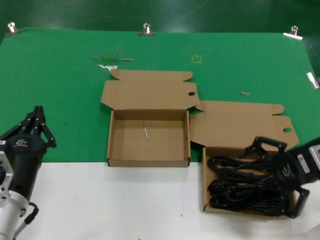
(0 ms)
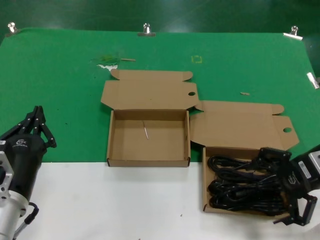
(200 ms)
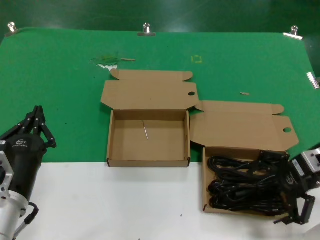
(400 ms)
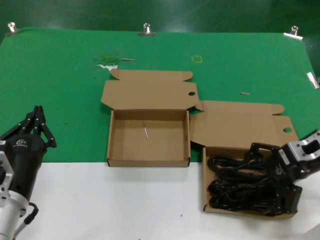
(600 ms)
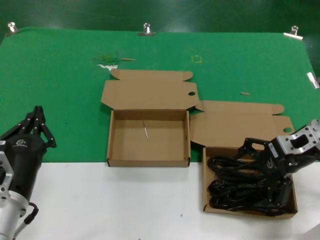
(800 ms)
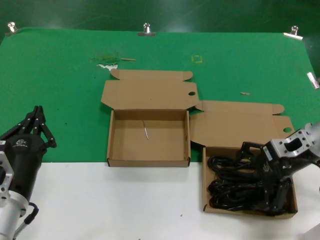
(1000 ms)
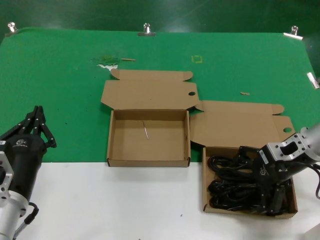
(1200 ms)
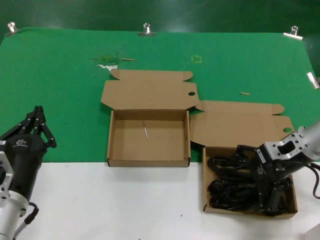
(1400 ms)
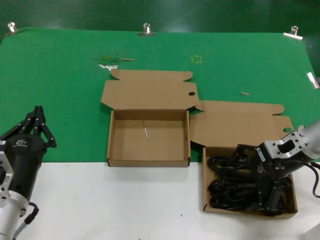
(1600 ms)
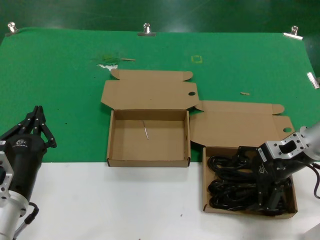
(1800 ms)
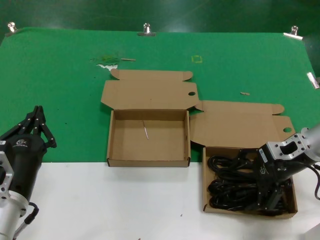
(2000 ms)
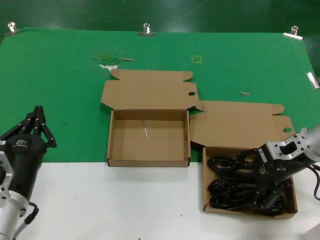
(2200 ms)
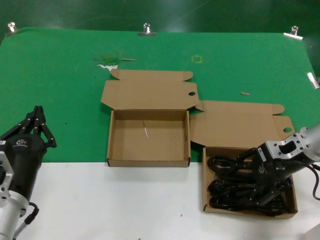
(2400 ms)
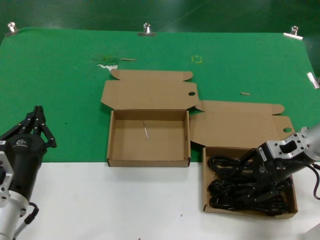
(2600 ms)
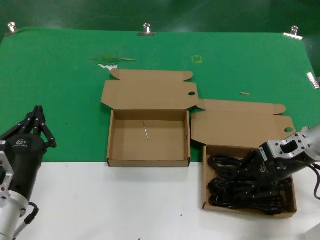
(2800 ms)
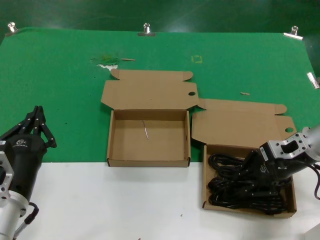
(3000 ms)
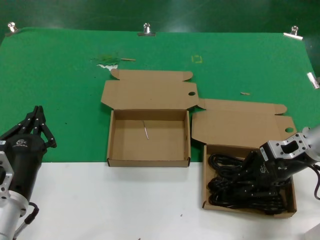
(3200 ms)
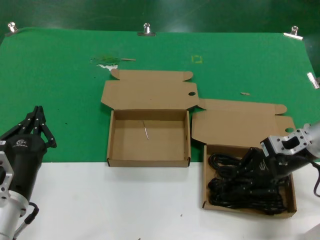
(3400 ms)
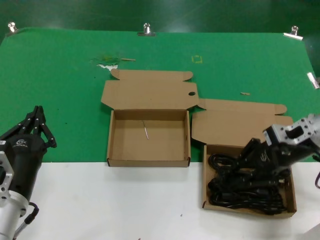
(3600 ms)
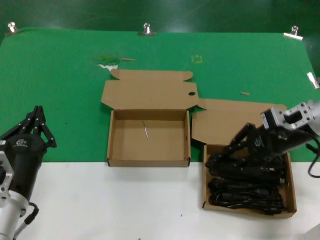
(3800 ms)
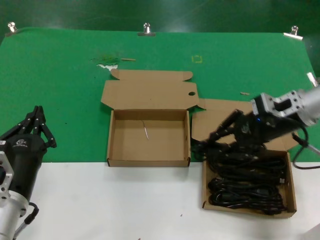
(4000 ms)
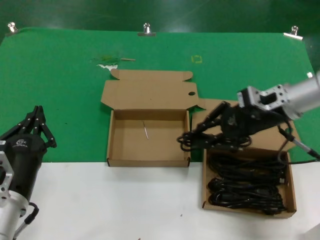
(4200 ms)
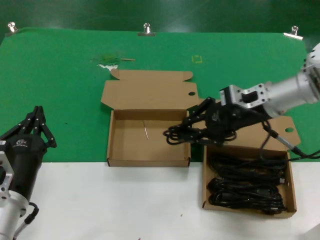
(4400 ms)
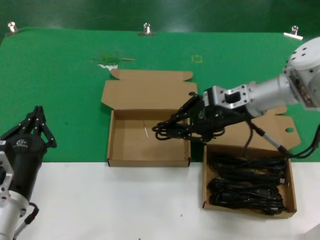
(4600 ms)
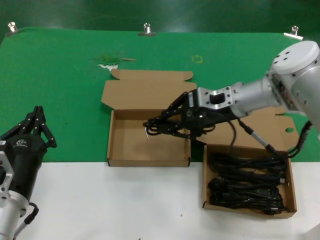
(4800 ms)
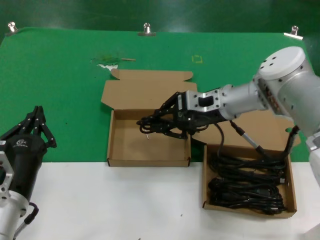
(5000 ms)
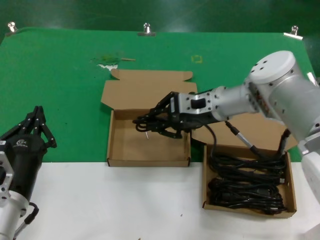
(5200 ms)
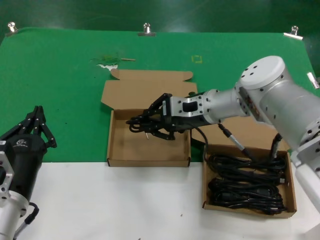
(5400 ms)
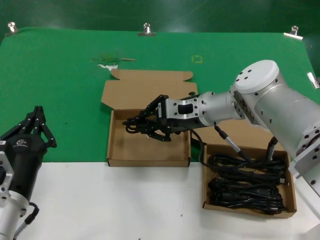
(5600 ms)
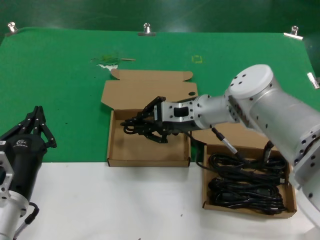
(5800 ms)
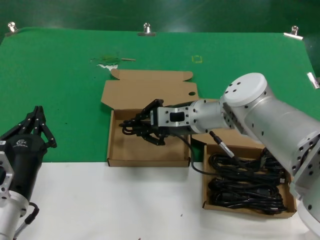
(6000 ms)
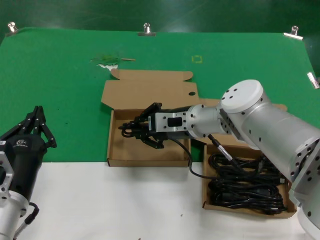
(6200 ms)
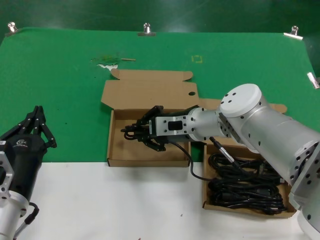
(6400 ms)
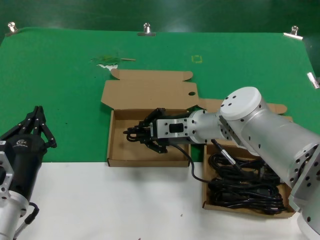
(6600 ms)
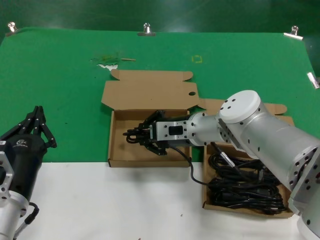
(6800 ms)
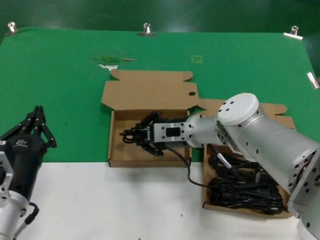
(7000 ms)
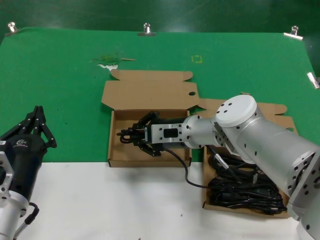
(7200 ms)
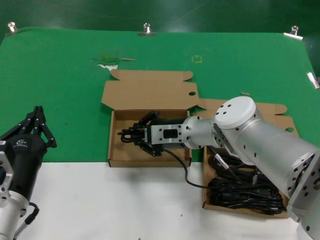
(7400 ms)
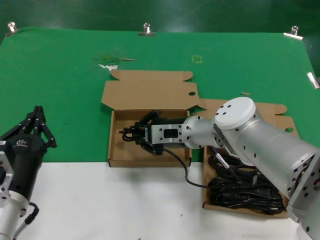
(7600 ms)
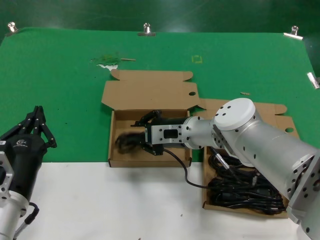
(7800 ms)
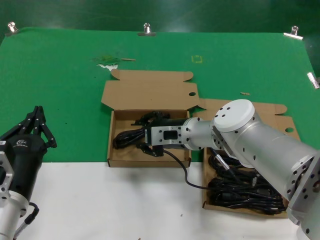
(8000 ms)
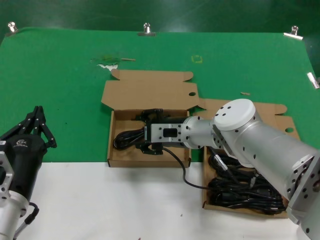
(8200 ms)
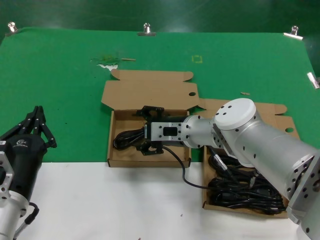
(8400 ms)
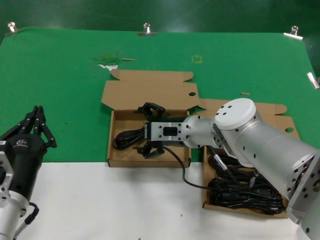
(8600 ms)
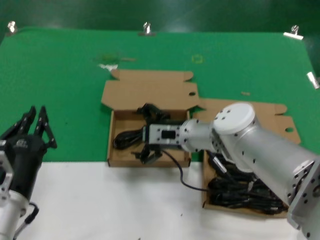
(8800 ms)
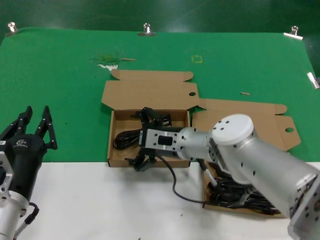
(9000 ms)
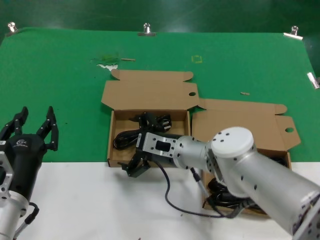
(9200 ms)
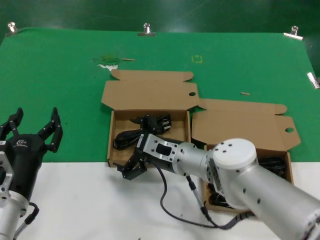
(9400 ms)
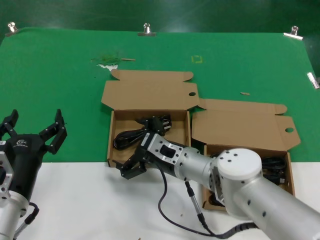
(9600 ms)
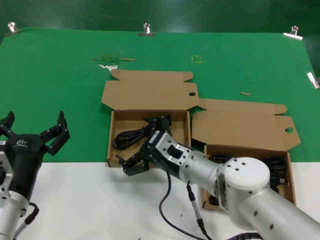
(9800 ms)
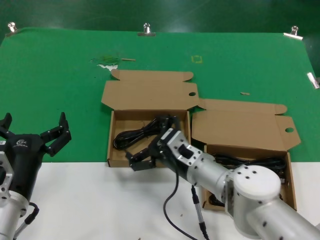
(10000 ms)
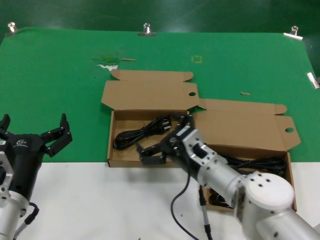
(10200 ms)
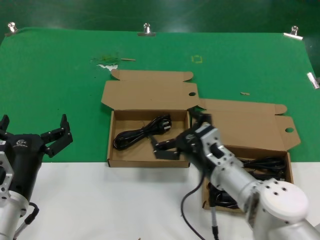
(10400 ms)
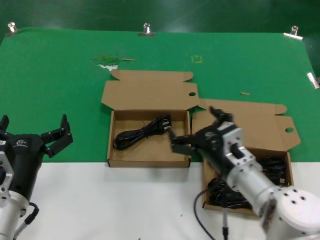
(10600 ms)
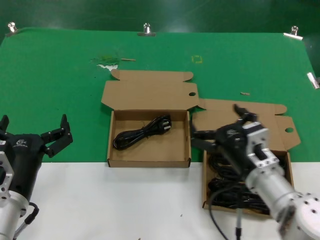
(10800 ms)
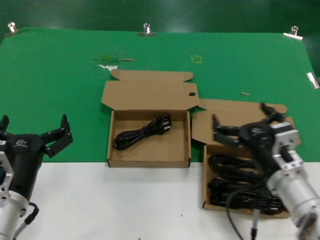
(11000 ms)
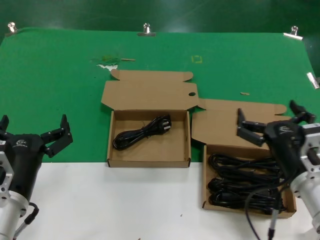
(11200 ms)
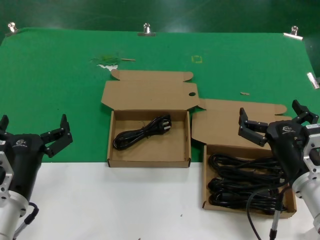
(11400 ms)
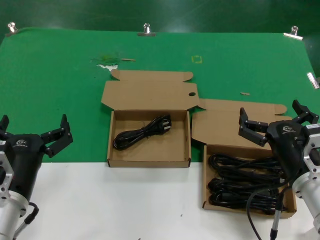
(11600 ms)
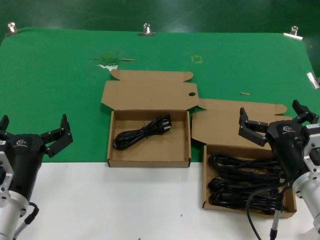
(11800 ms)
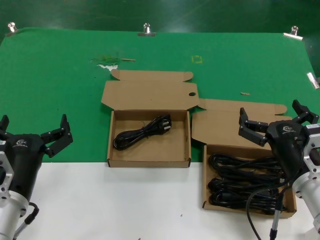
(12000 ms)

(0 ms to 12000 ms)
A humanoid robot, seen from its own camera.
Task of the whole recording: take the parts from the box containing them and put them into an empty box.
Step, 0 ms - 3200 ms: Grasp the data cable.
Step, 3400 ms - 7800 ms: Place the data cable in the another box.
0 ms - 1600 ms: The right hand is displaced forward and downward by some 10 cm.
1600 ms - 3000 ms: The two hands keep their place.
3000 ms - 4400 ms: The right hand moves to the left and upward, some 10 cm.
4400 ms - 6000 ms: The right hand travels to the left and downward by roughly 15 cm.
6000 ms - 7600 ms: There are only small adjustments of the hands.
7600 ms - 9000 ms: There are only small adjustments of the hands.
9000 ms - 10400 ms: The right hand travels backward by roughly 10 cm.
10400 ms - 12000 ms: The right hand goes approximately 15 cm to the right and backward.

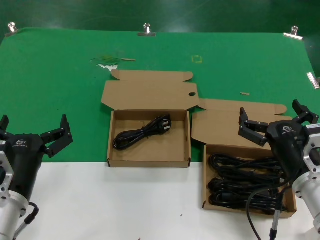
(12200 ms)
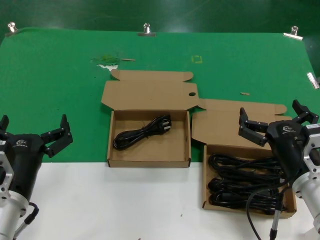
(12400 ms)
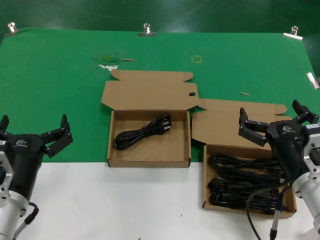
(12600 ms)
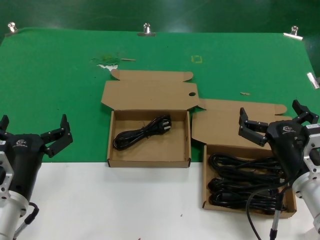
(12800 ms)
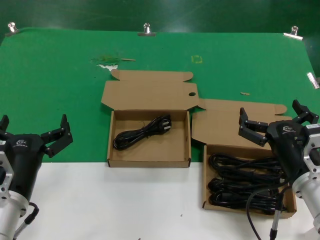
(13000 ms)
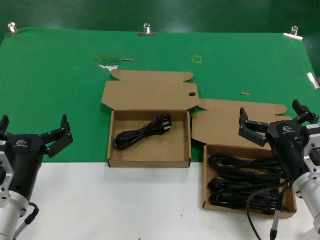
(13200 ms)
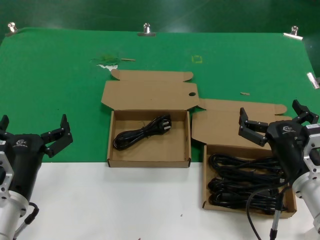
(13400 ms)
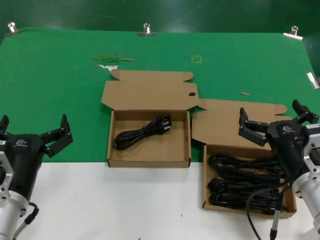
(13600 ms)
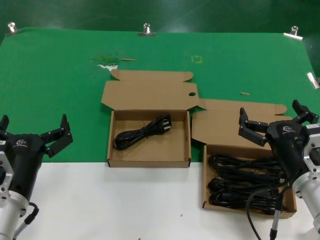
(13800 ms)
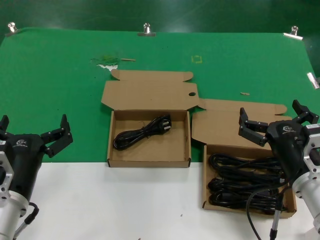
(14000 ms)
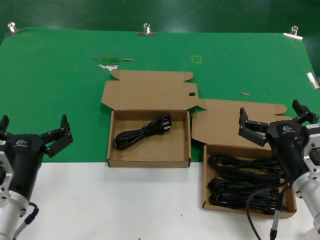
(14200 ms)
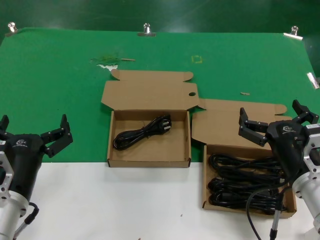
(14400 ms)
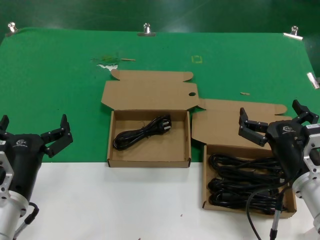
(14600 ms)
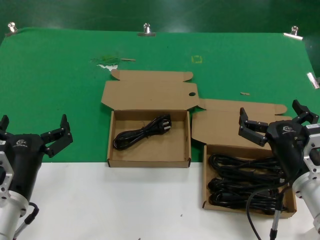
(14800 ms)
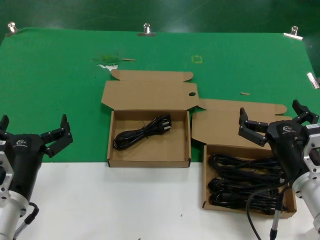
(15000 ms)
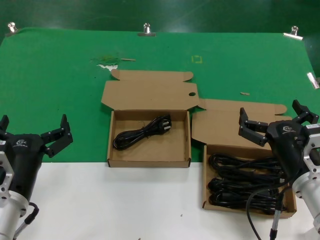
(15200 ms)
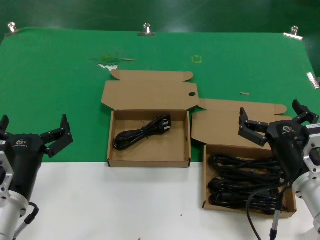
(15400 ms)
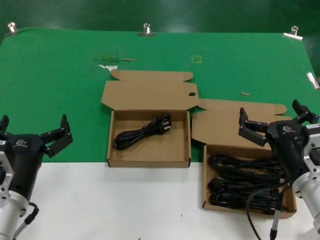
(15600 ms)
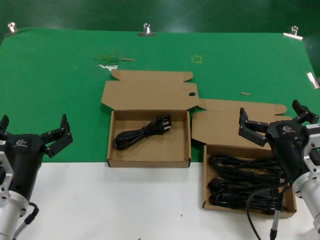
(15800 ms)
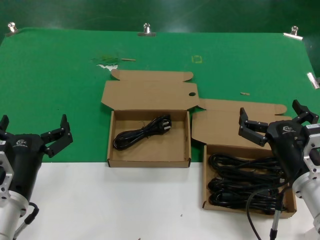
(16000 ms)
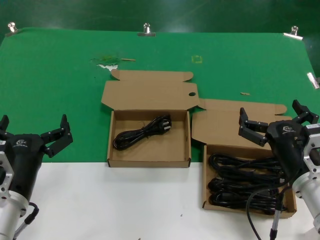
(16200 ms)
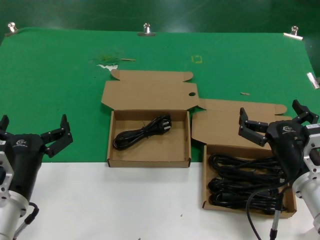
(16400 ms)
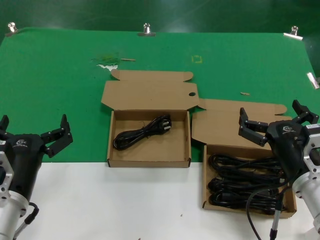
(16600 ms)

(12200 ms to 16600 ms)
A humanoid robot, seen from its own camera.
Task of the whole recording: take the parts from the box containing them and put them into an empty box.
12200 ms - 16600 ms: Neither hand changes place.

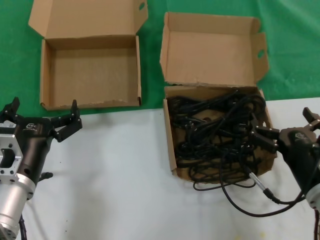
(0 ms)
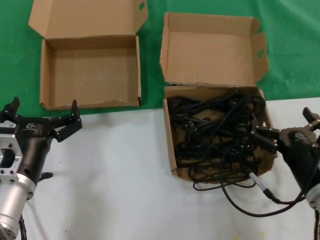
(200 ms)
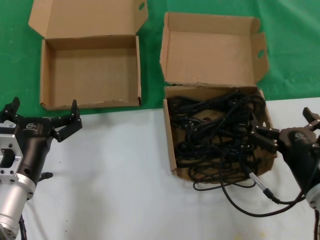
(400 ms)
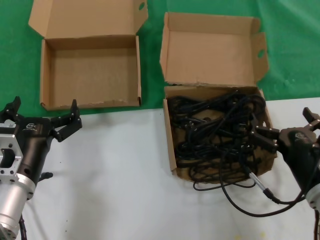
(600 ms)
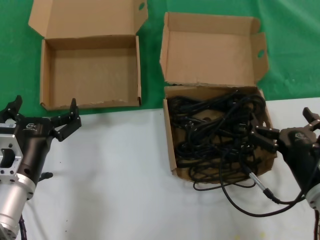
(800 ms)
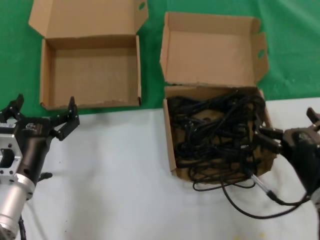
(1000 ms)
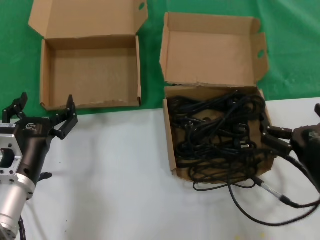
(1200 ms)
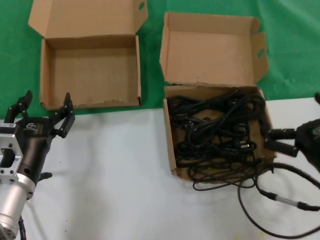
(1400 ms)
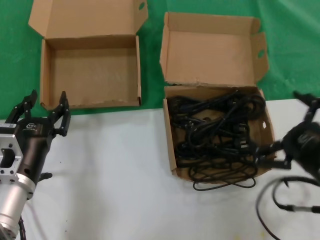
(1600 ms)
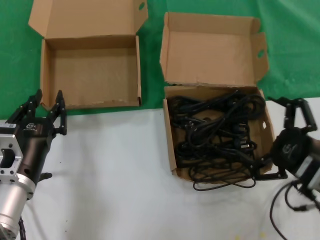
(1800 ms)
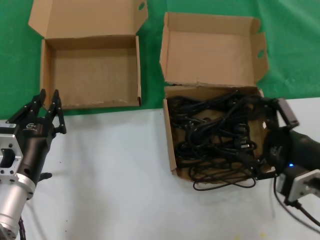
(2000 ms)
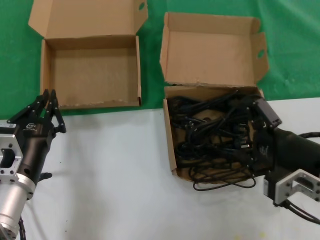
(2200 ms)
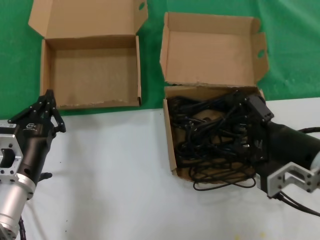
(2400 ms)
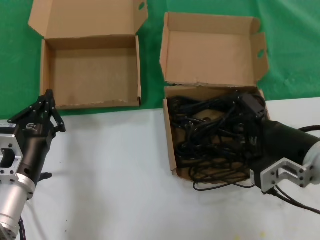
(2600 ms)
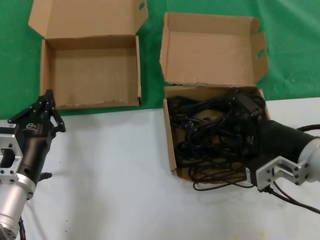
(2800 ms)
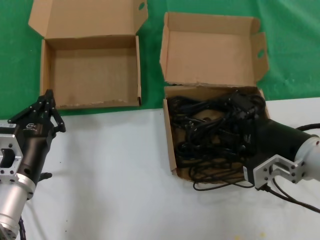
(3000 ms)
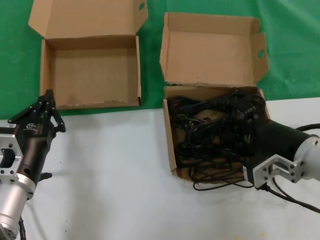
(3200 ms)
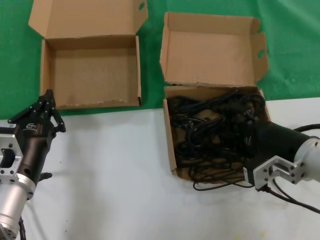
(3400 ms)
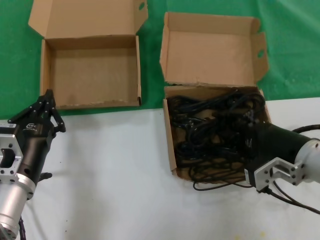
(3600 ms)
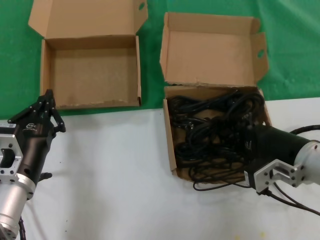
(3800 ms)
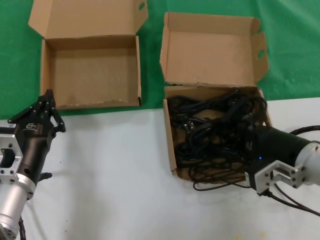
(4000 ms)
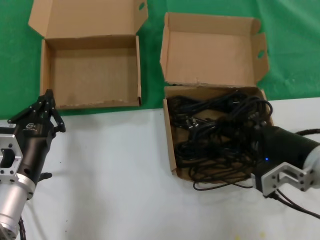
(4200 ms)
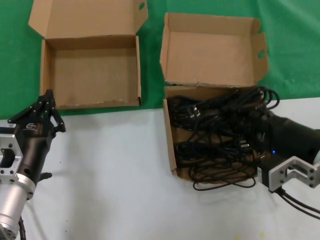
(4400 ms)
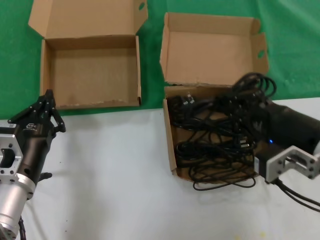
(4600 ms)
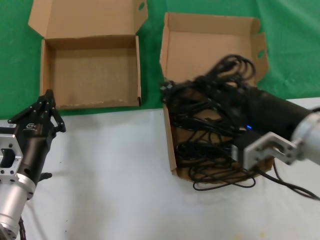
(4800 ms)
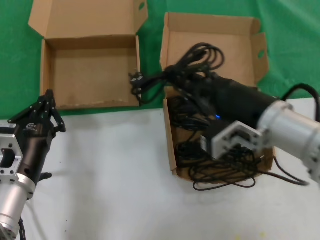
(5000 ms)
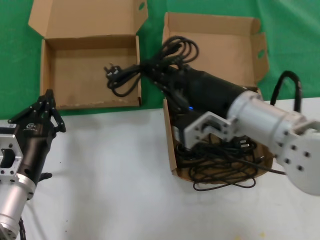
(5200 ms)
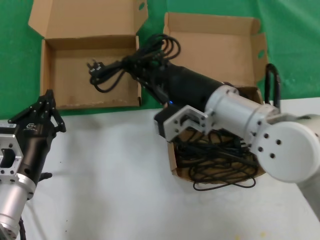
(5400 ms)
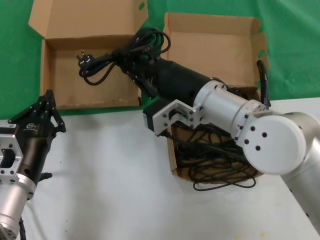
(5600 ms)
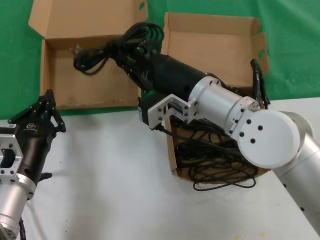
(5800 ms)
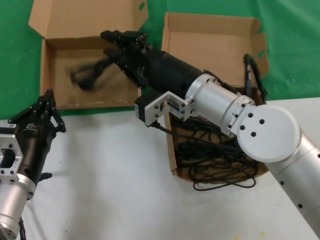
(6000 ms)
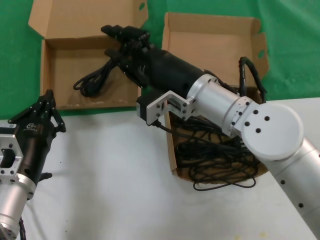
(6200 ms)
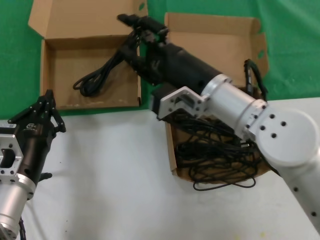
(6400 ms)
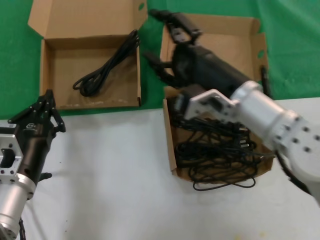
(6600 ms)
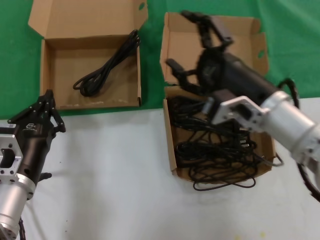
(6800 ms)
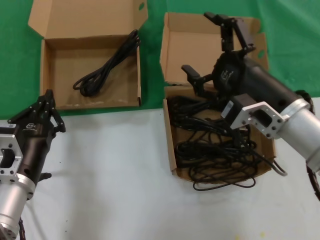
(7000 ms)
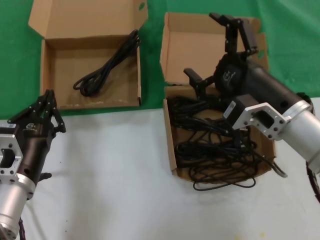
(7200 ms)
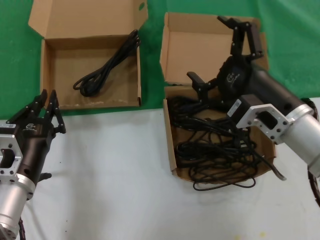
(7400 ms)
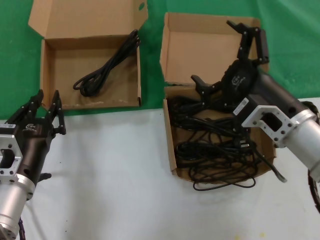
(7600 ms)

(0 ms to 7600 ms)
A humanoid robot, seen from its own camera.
Task of the whole recording: take the parts from the box containing them and put them into an empty box.
Step, 0 ms - 3800 ms: Grasp the data cable.
Step, 4000 ms - 6000 ms: Place the data cable in the another box.
0 ms - 1600 ms: The right hand is displaced upward by roughly 5 cm.
1600 ms - 3000 ms: The right hand shifts about 10 cm forward and to the left.
3000 ms - 4600 ms: The right hand changes place by about 5 cm.
4600 ms - 6000 ms: The right hand travels to the left and forward by some 20 cm.
6000 ms - 7600 ms: The right hand moves to the right and backward, roughly 15 cm.
